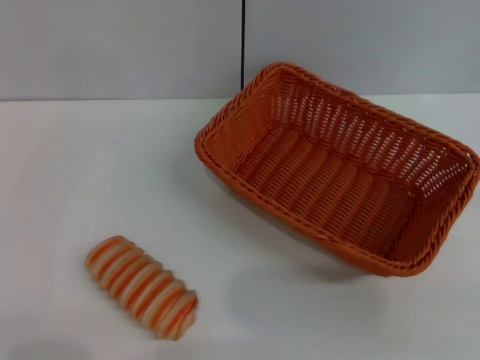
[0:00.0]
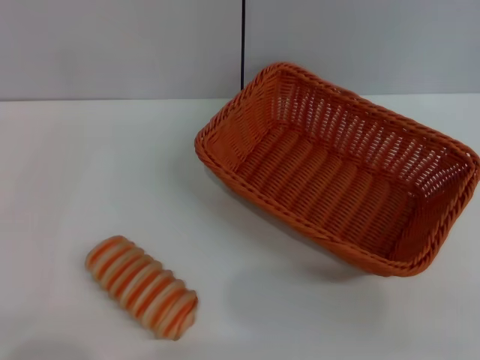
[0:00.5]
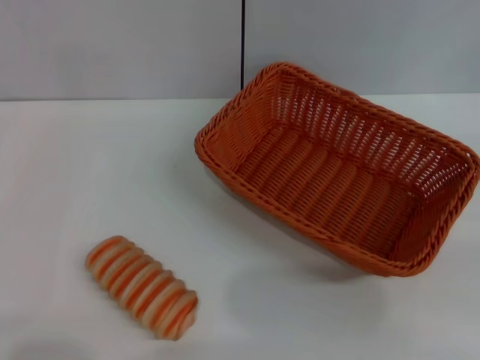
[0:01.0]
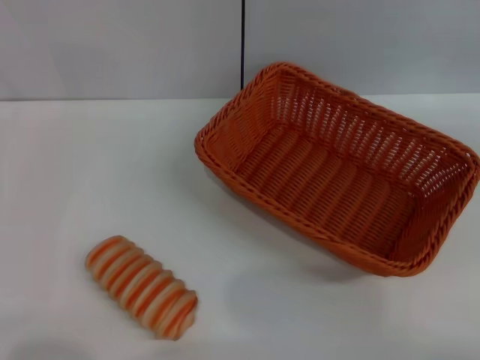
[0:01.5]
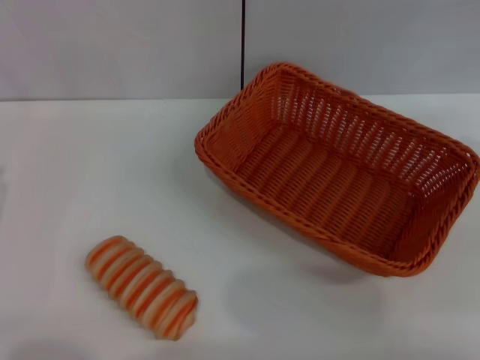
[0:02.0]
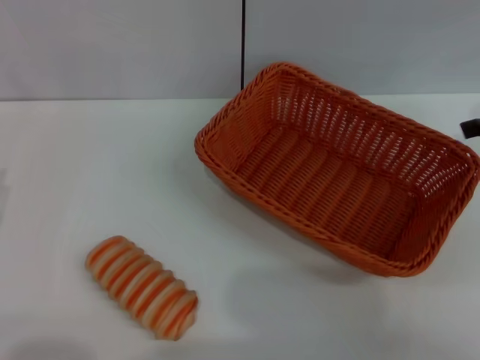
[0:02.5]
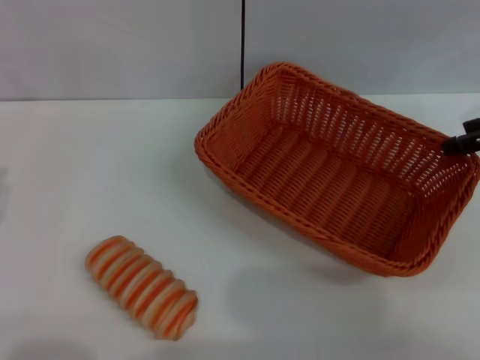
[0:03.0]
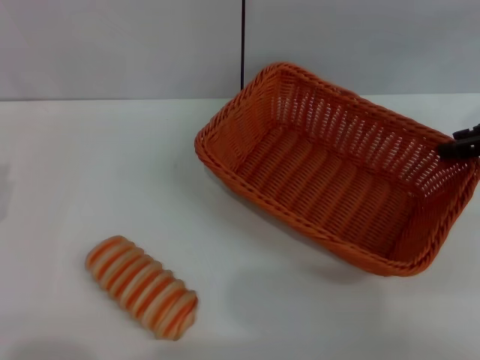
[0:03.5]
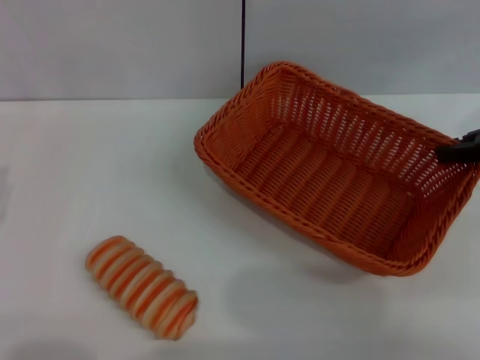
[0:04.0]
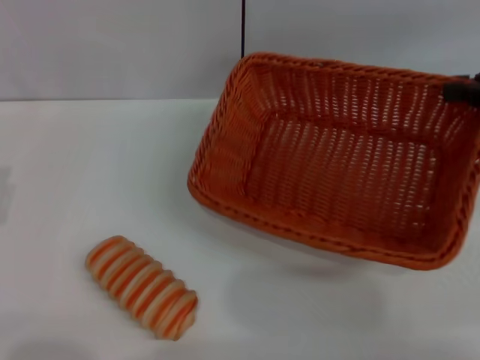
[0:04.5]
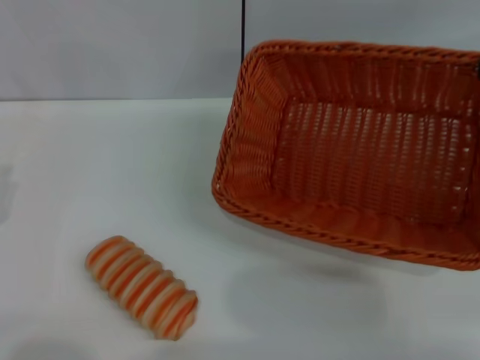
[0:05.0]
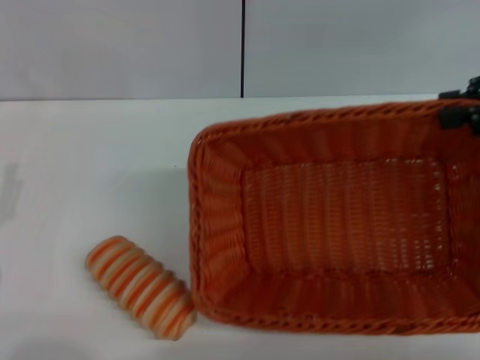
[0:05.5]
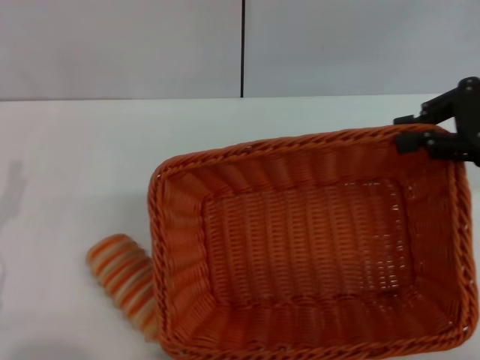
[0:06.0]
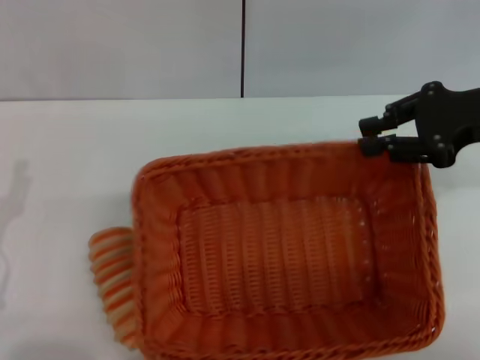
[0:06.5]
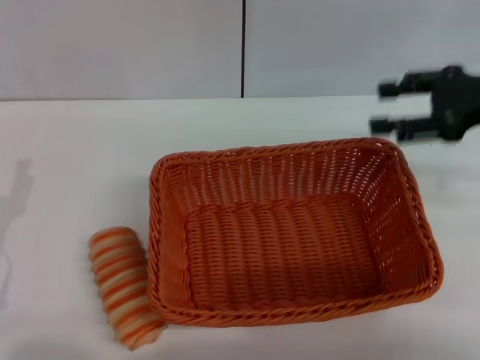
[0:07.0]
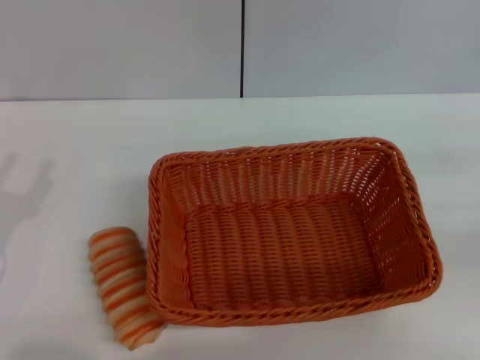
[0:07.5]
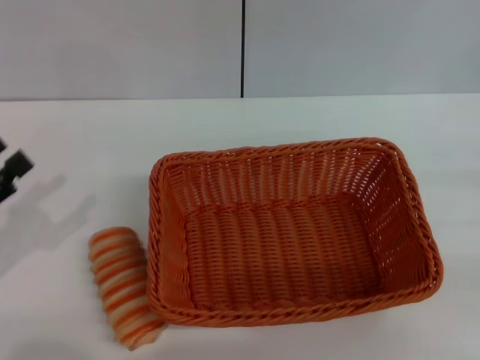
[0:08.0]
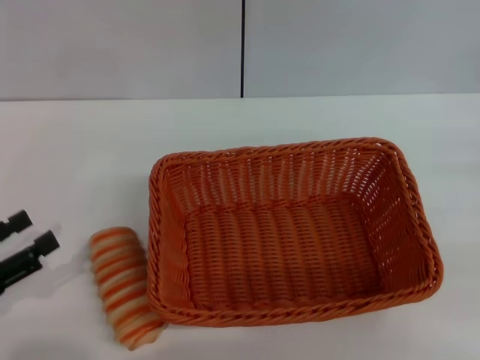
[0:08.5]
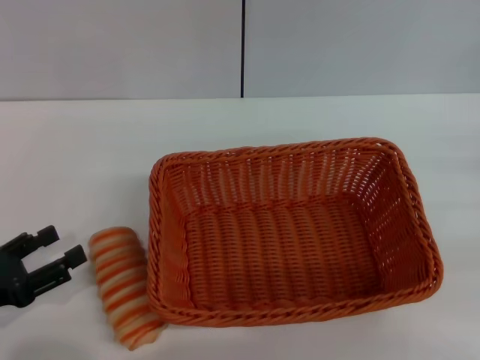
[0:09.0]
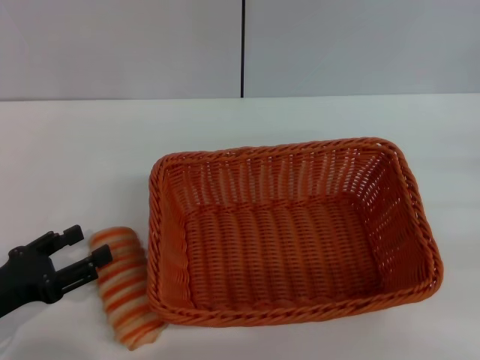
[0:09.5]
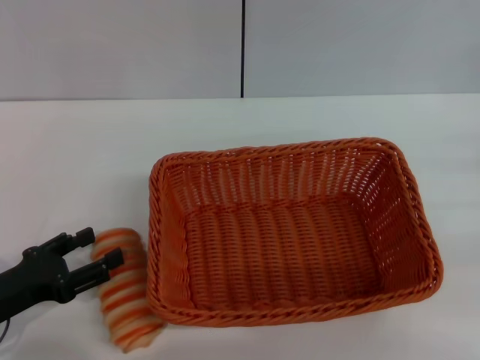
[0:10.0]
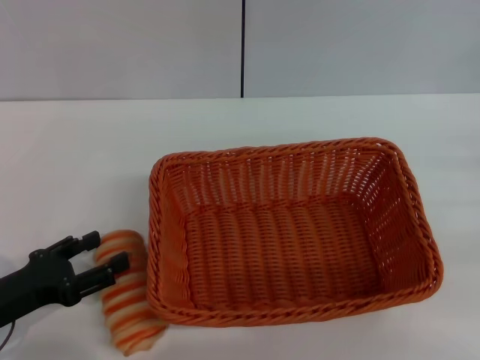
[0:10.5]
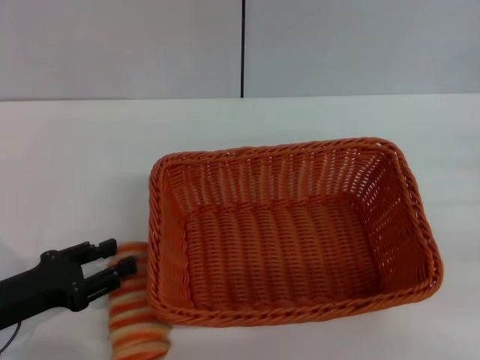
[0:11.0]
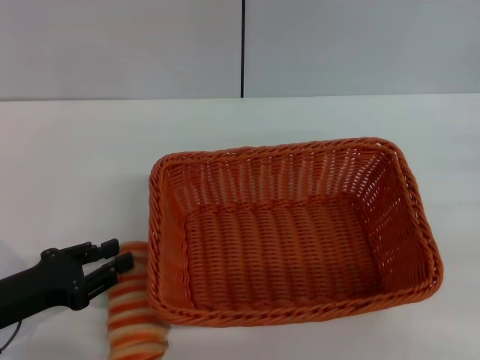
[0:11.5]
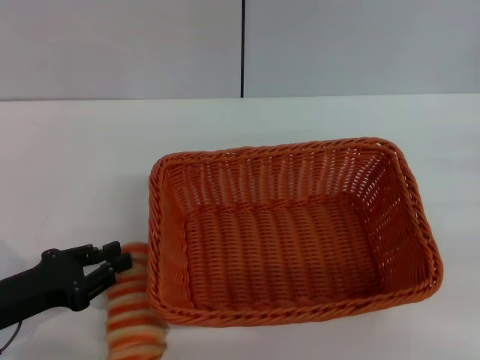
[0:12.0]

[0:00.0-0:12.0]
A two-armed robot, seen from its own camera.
Step, 0:00.0 to 0:04.5: Pick up the light basket with the right gripper.
Step, 0:05.0 to 0:07.0: Place the light basket in the center of view with the right gripper.
0:02.0 to 0:04.0: The right gripper moves downward and to the left, some 10 cm, and closes its fingers.
0:06.0 to 0:08.0: The left gripper moves approximately 5 cm. The right gripper travels to the right, downward and backward by approximately 20 cm, and opens up.
0:08.0 to 0:10.0: The left gripper goes about 5 cm downward.
0:10.0 to 0:12.0: The left gripper closes.

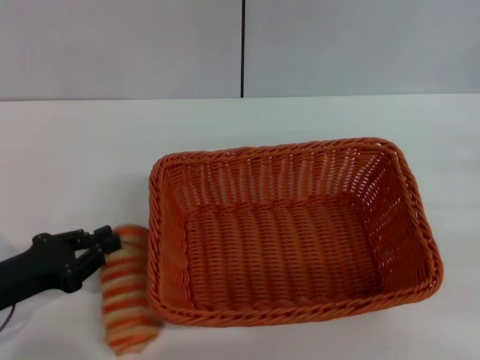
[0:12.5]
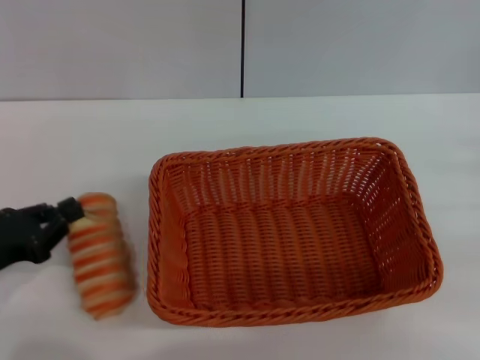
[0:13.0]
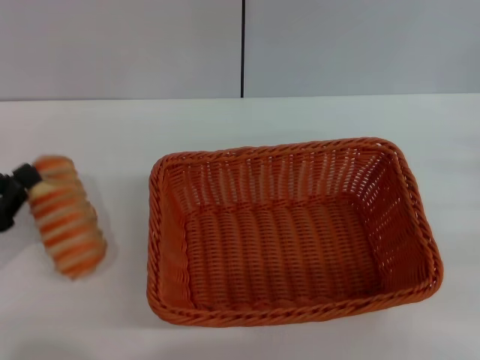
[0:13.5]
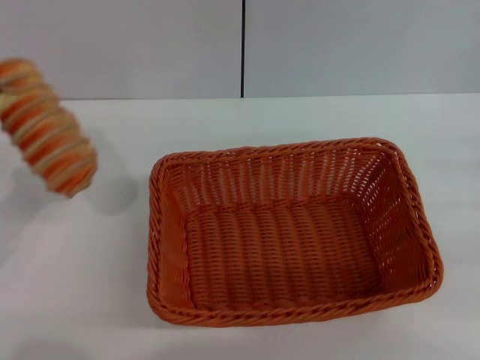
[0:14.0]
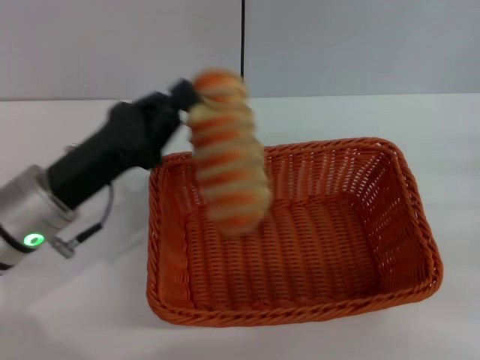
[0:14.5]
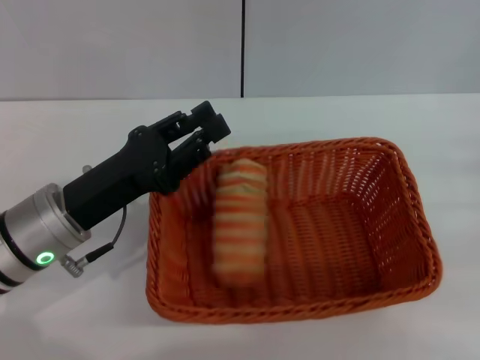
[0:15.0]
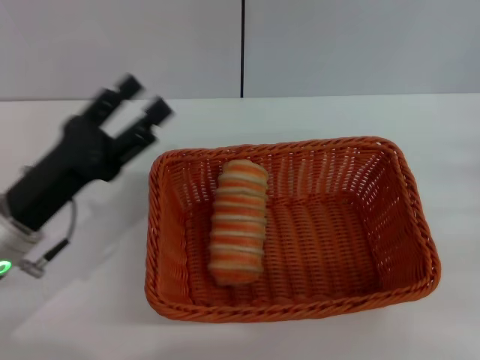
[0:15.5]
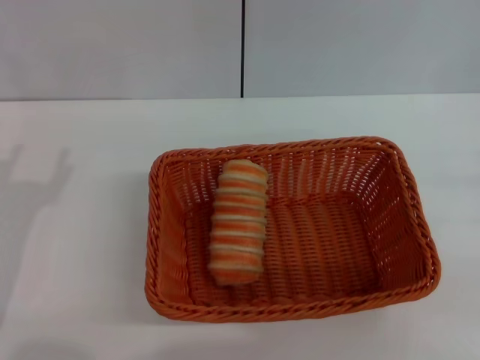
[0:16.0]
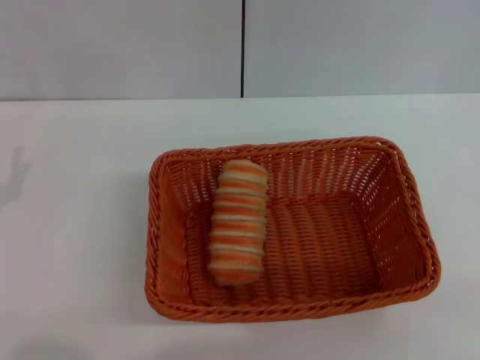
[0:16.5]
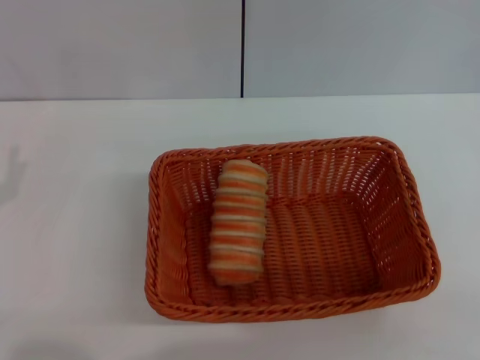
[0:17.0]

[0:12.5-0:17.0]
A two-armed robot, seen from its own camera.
Step, 0:14.0 to 0:15.5: Place the long bread into the light basket with the left gripper.
0:12.5 to 0:14.5: The left gripper shifts roughly 15 cm to the right, forward and upward.
0:14.5 to 0:17.0: The right gripper is displaced backward by approximately 5 cm, while the left gripper is displaced to the left and backward by roughly 15 cm, and opens its fingers.

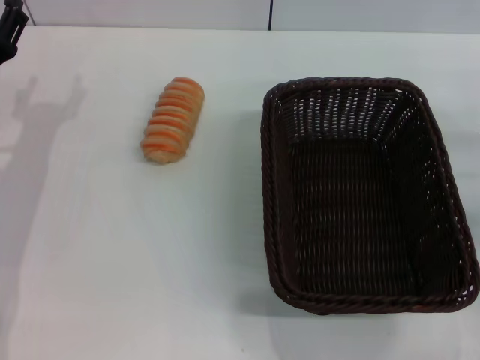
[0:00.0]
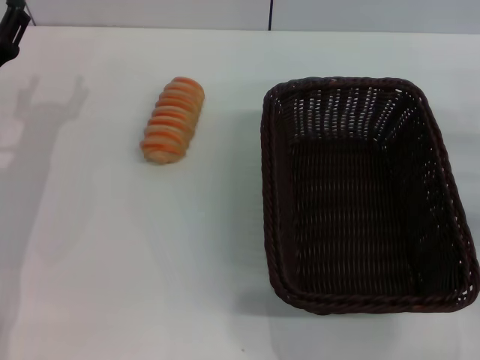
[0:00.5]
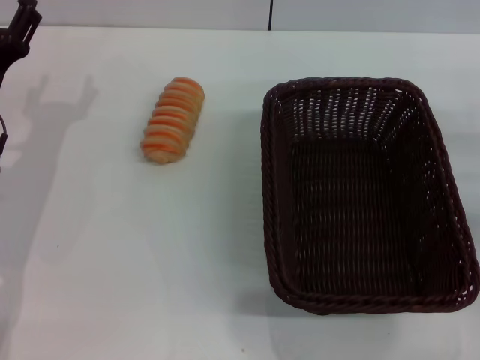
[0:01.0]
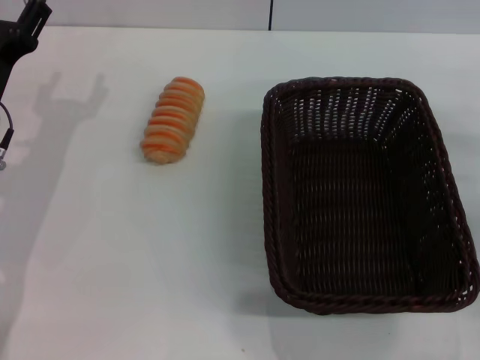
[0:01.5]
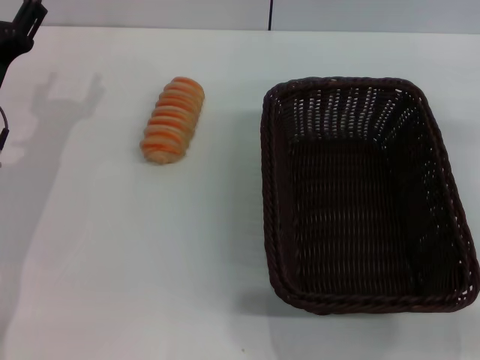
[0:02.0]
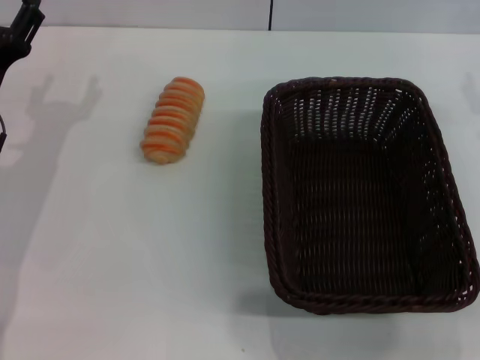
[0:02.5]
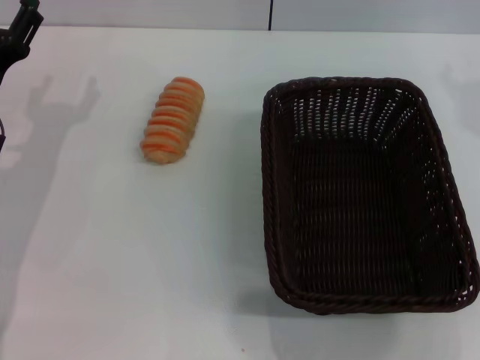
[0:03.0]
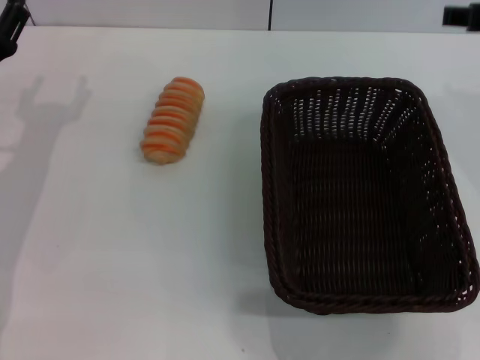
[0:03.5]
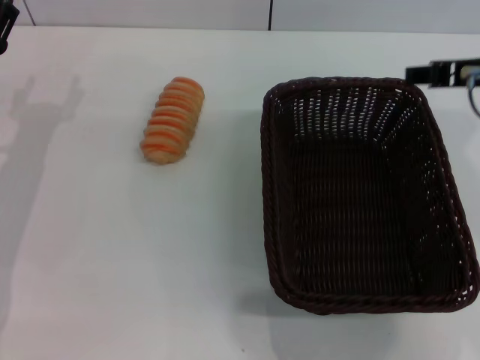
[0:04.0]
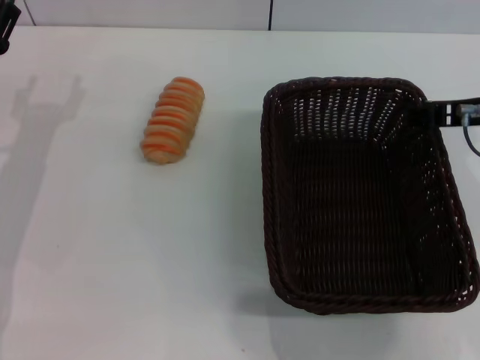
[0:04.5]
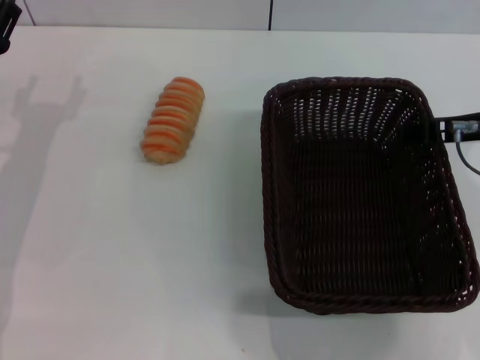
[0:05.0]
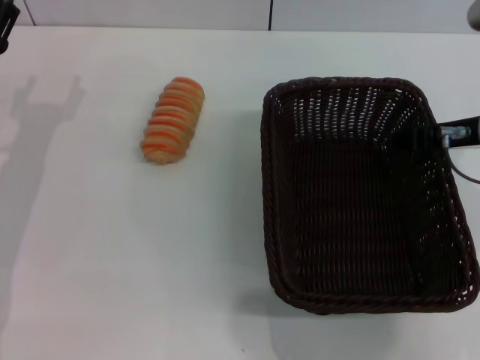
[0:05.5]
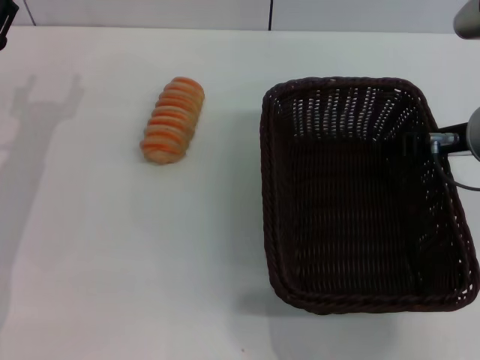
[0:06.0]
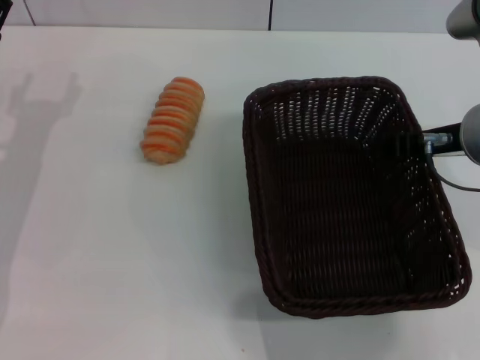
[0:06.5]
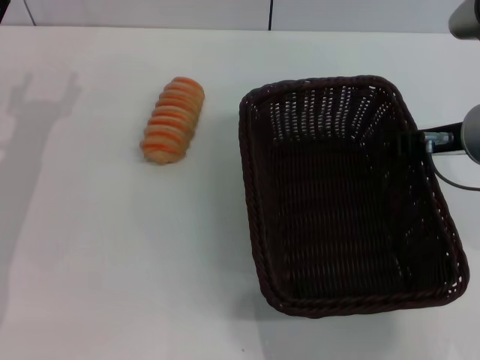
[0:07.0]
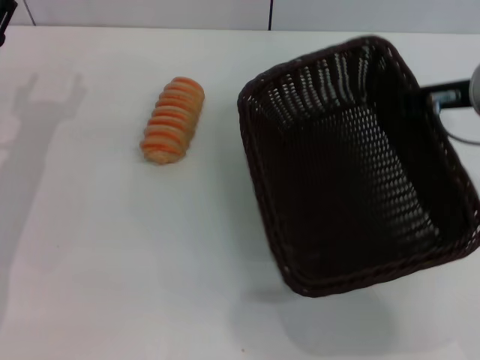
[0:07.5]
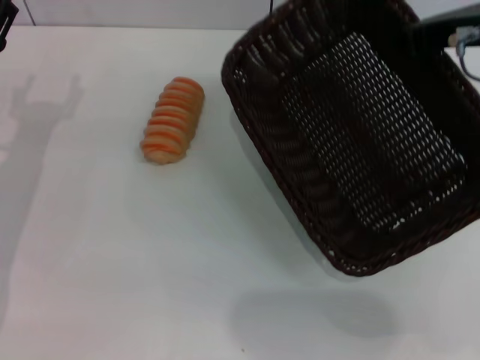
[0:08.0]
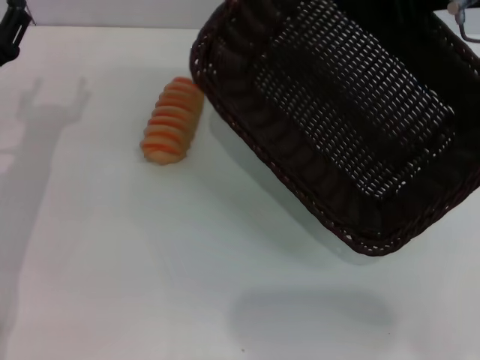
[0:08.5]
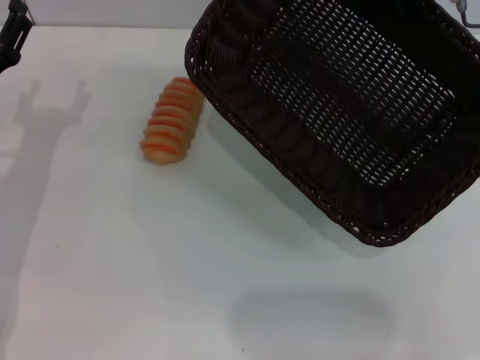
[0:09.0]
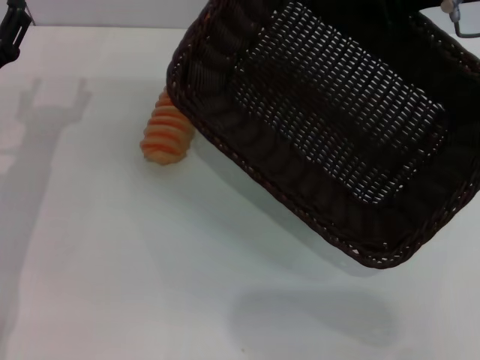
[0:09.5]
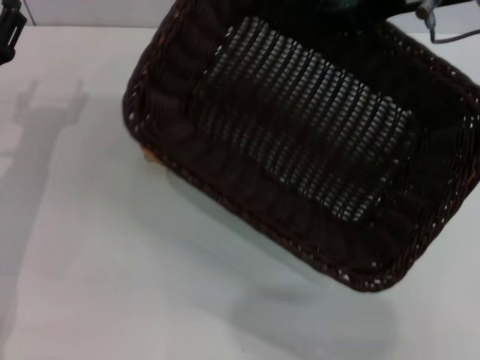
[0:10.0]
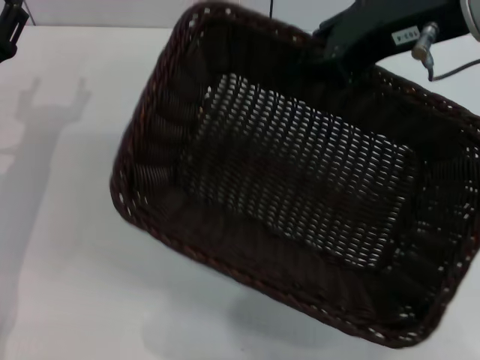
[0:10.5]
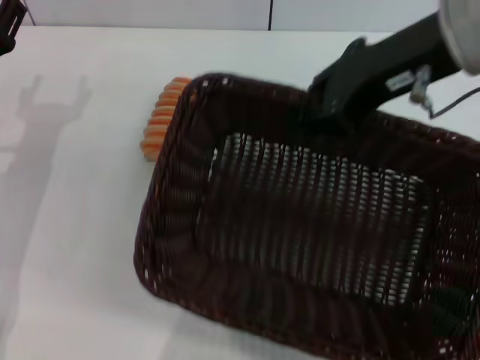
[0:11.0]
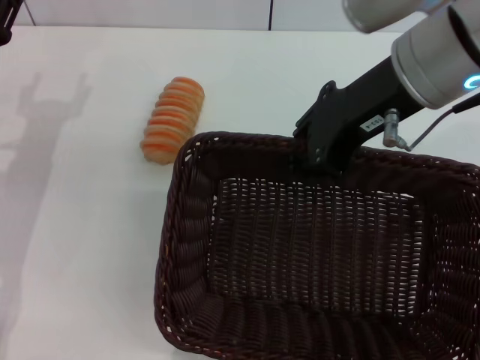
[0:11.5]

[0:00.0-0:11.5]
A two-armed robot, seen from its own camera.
Step, 0:00.0 to 0:07.5: Pick up the dark basket with the right gripper.
0:00.0 to 0:02.0: There are only small adjustments of the grippers.
0:02.0 to 0:04.0: The right gripper moves upward and to the left, approximately 15 cm.
0:04.0 to 0:06.0: The grippers stay close to where they were, moving slightly.
0:06.0 to 0:07.5: The right gripper closes its fingers.
0:07.5 to 0:09.5: The right gripper shifts approximately 10 cm upward.
0:09.5 to 0:11.5: The right gripper heads to the left, covering some 5 cm.
